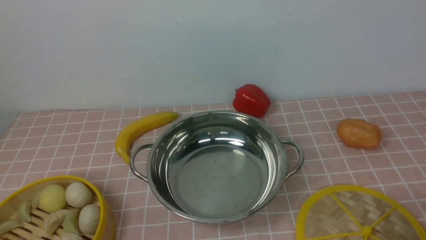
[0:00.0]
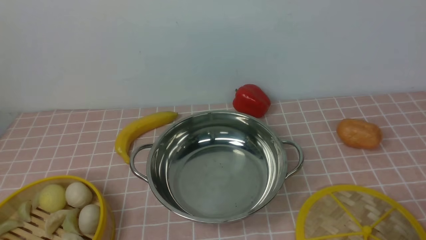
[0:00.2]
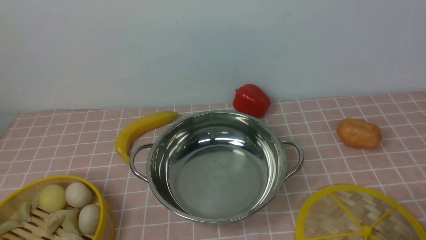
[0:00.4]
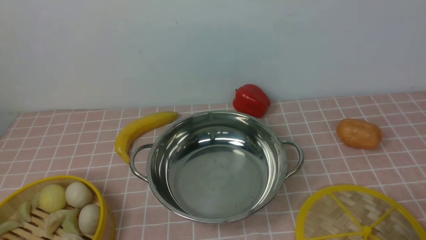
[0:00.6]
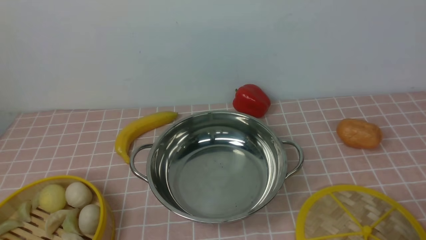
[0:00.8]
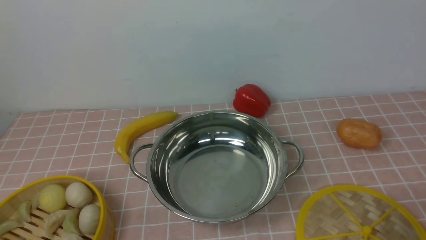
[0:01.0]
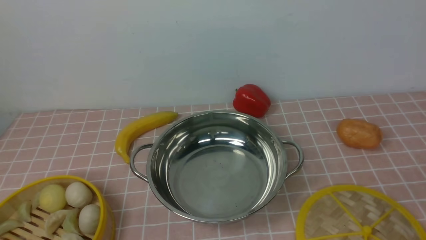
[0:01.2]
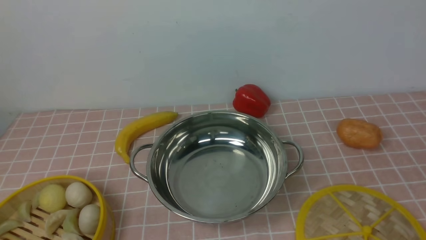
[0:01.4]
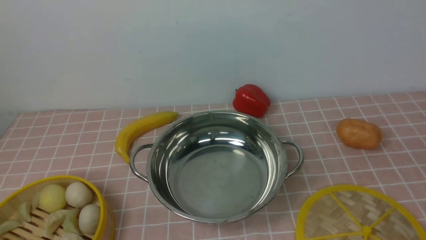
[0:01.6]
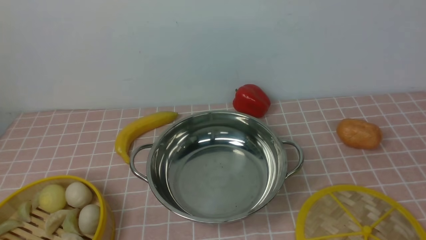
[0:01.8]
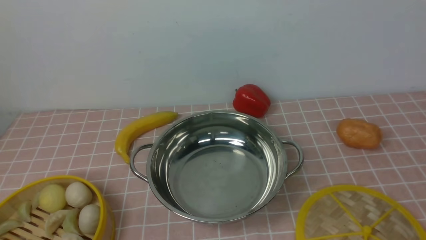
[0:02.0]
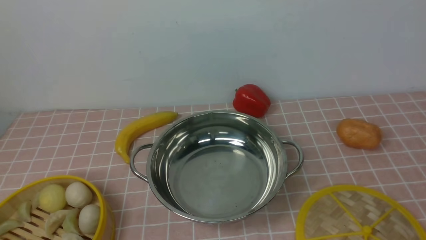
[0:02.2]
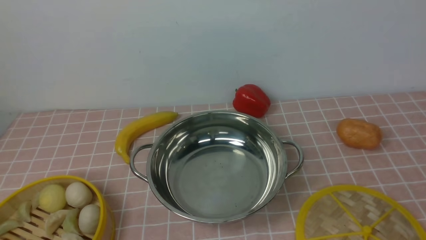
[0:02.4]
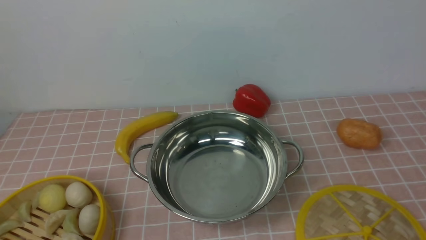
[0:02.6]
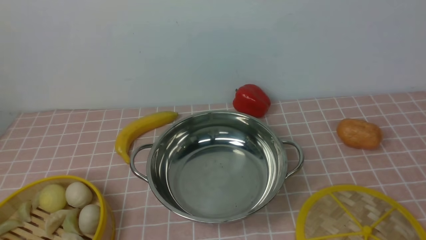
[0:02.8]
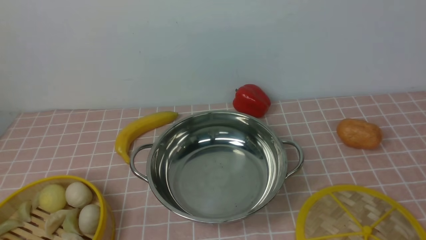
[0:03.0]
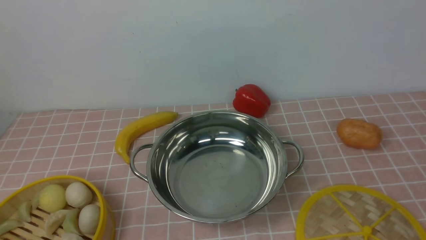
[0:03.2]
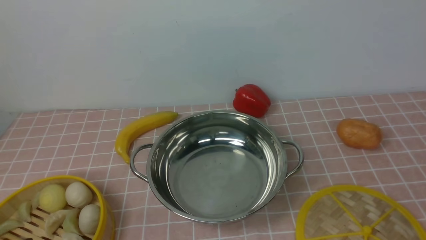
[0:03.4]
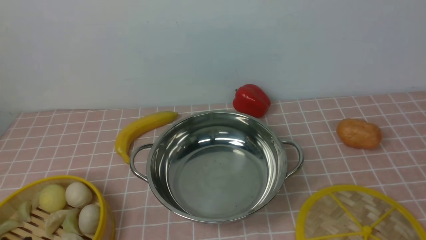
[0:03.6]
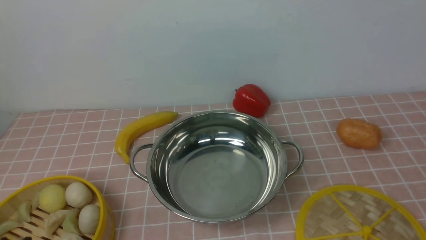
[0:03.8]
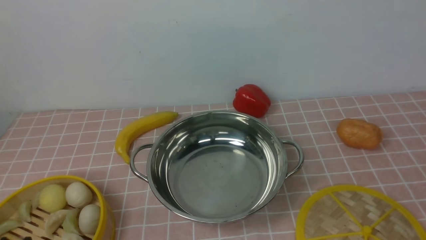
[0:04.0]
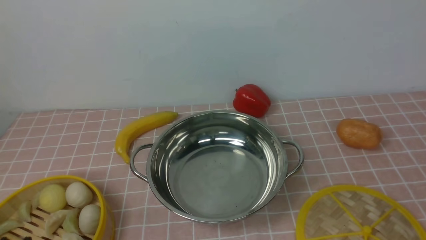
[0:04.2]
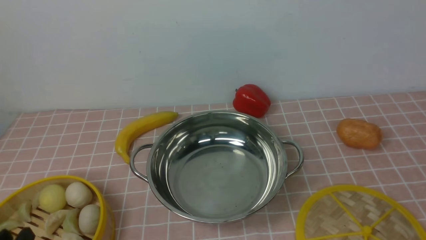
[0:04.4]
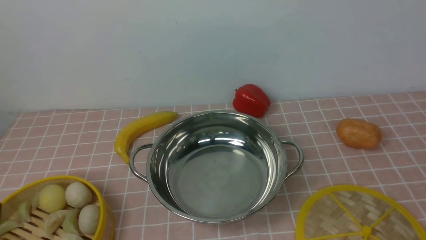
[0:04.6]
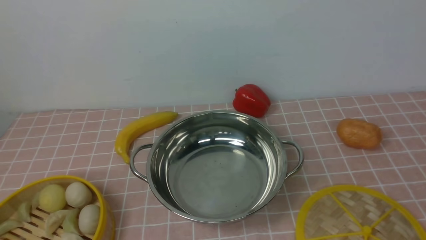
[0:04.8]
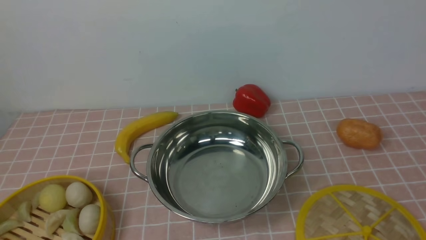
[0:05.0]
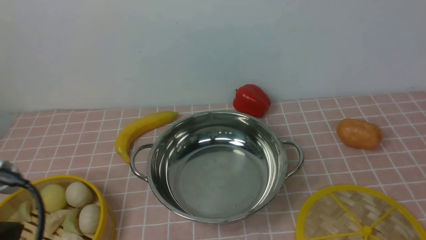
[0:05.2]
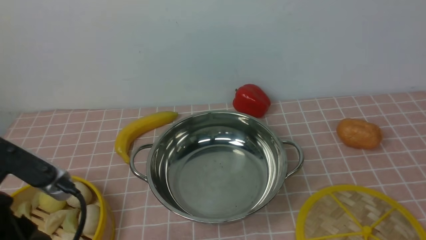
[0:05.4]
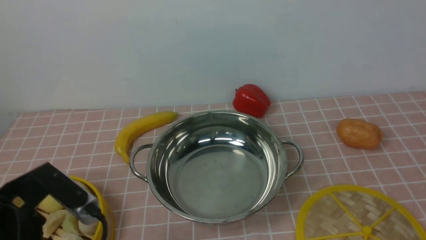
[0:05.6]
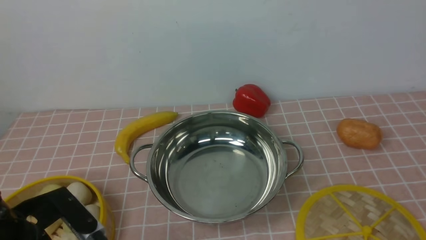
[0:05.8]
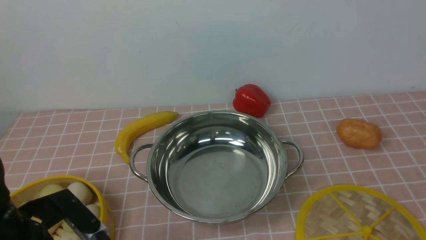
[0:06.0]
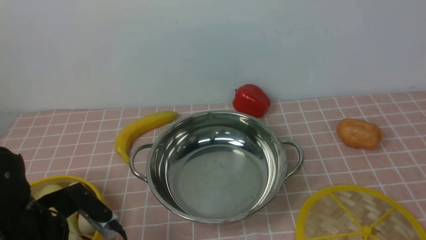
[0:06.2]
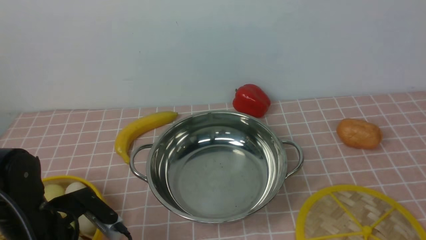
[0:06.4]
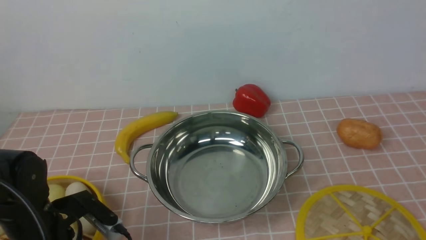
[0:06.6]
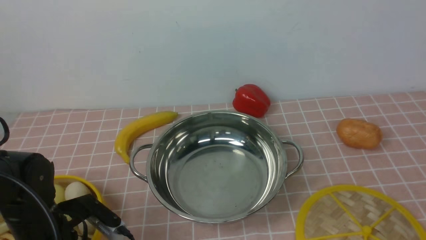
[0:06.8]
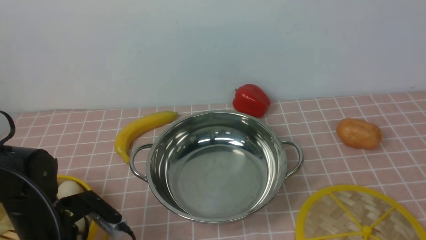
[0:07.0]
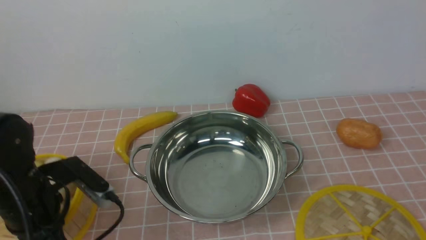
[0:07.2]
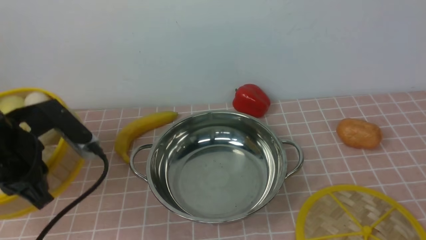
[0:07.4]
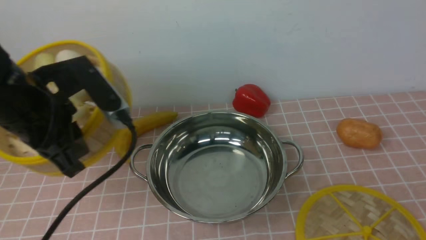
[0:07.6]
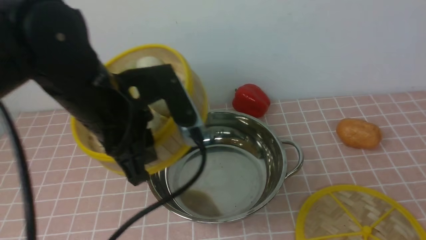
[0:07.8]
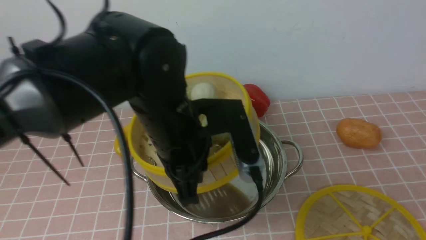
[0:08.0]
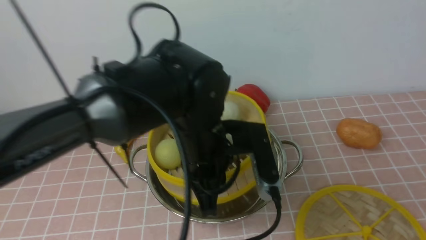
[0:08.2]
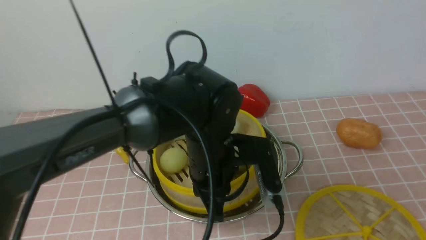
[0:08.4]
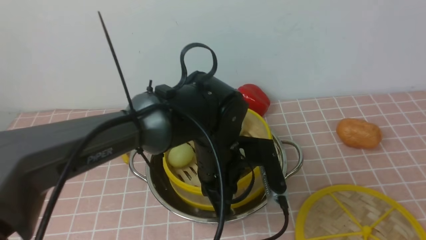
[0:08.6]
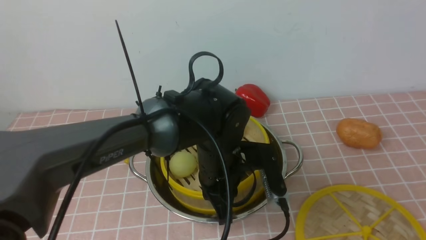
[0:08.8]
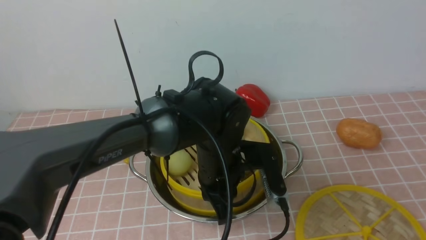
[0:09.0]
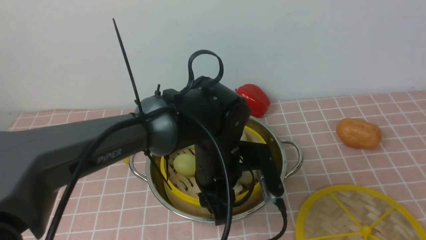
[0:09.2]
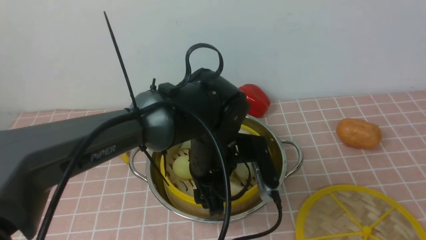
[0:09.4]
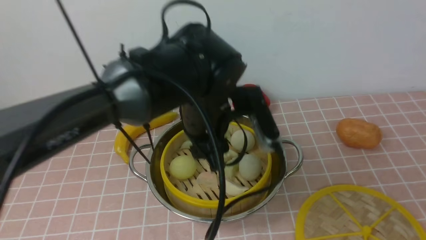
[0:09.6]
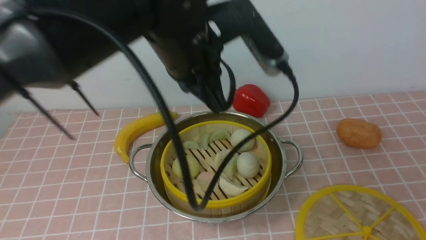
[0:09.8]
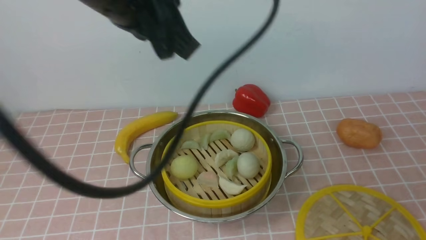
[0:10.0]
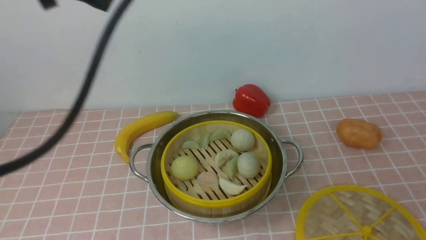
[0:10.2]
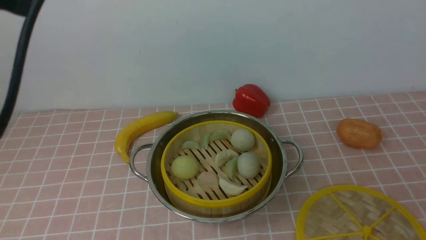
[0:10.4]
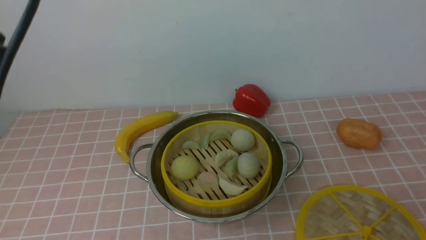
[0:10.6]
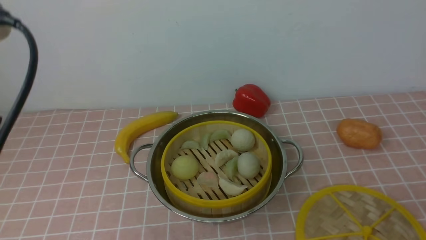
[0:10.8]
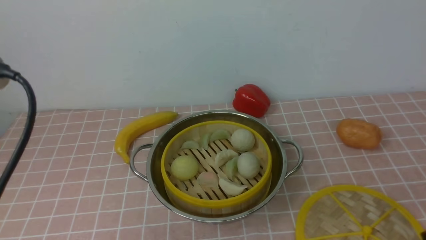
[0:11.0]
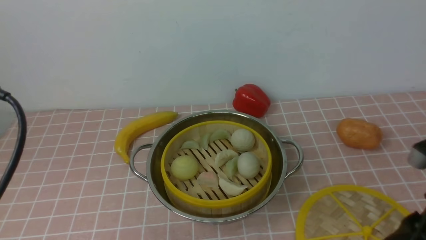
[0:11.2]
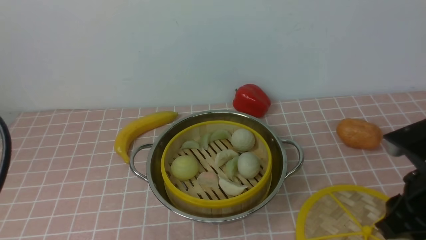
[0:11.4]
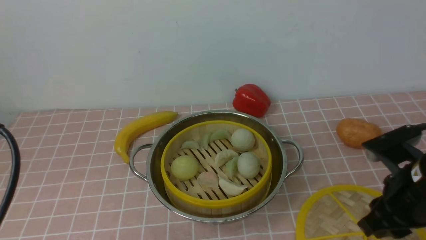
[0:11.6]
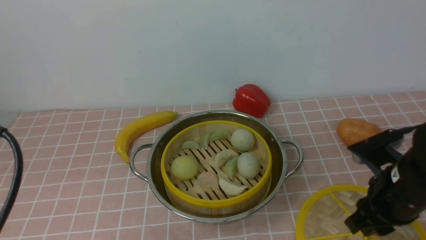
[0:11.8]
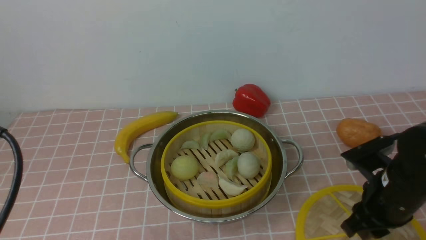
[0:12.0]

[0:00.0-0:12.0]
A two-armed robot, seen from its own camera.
Task of the whole recording: place the steamer in the pot on the pink tablecloth, and put the lid on the steamer.
Step, 0:00.0 to 0:07.0: use the left arm to lift the steamer closest to it.
Step, 0:07.4 to 0:09.4: use the left arm to put the steamer into the iron steamer pot in the middle.
0:04.4 to 0:06.0: The left gripper goes some 10 cm forward, and reaches about 15 cm upward, then returns.
0:06.0 to 0:07.6: The left gripper travels upward and forward by roughly 15 cm, and closes up.
0:07.6 to 0:09.0: The left gripper goes some 25 cm to the right and downward.
0:09.0 to 0:10.4: The left gripper travels upward and to the left by about 35 cm, and opens, then closes again.
0:10.4 to 0:12.0: The right gripper moves forward and downward, some 25 cm, while the left gripper travels downward, backward and to the left by about 15 cm.

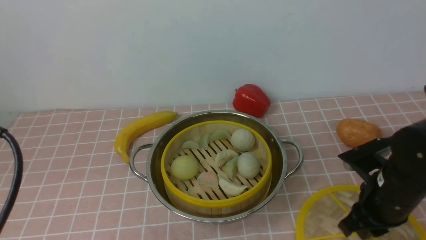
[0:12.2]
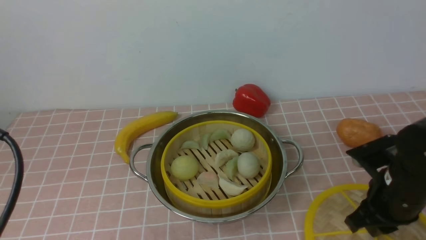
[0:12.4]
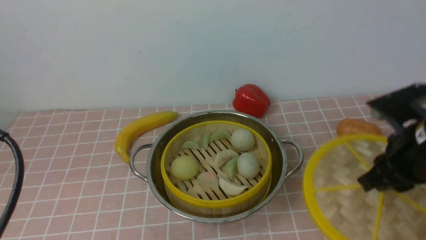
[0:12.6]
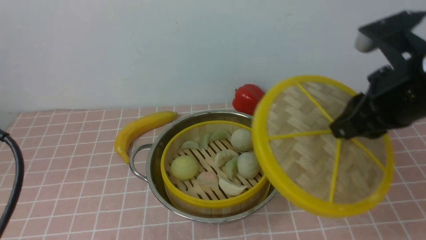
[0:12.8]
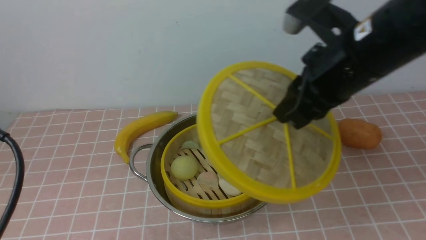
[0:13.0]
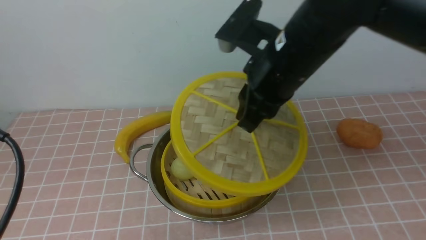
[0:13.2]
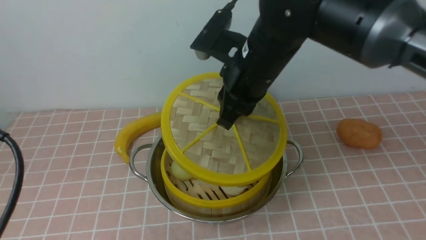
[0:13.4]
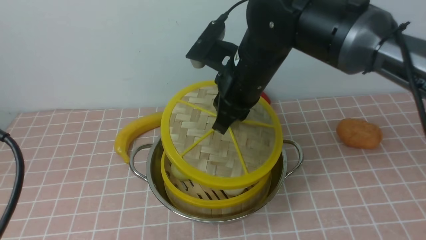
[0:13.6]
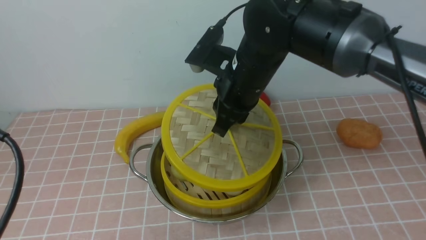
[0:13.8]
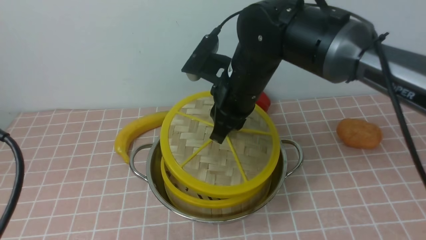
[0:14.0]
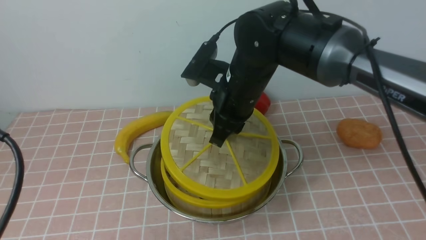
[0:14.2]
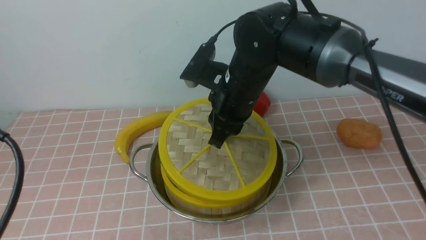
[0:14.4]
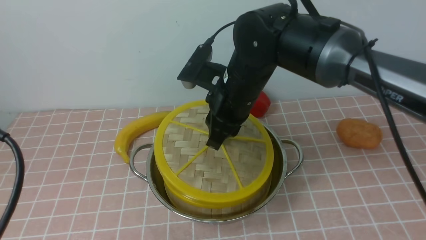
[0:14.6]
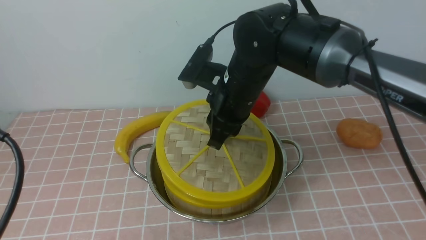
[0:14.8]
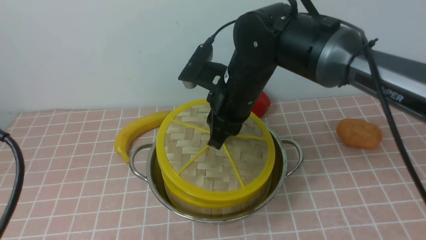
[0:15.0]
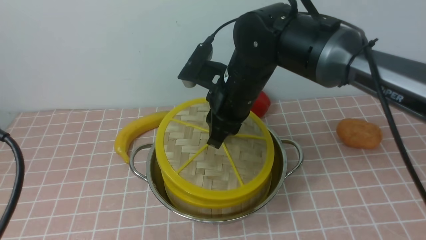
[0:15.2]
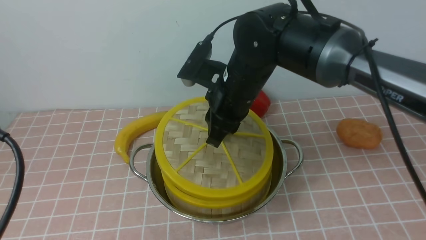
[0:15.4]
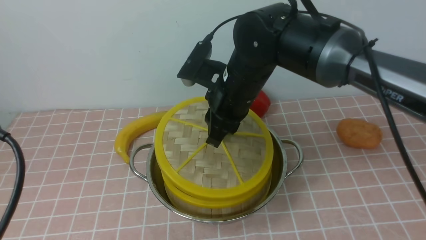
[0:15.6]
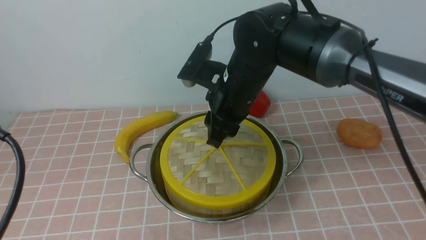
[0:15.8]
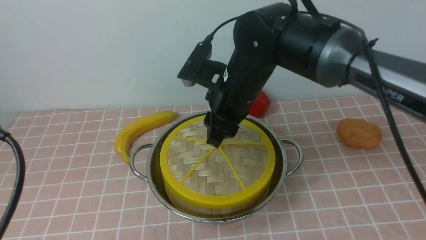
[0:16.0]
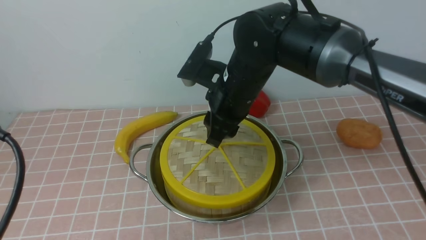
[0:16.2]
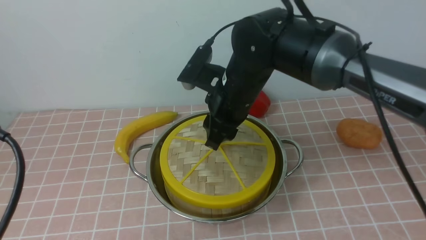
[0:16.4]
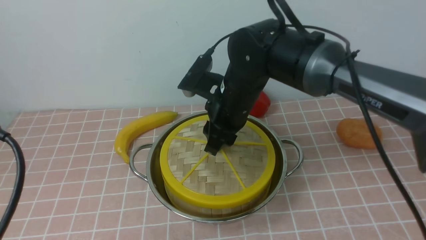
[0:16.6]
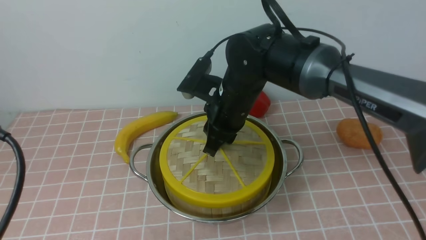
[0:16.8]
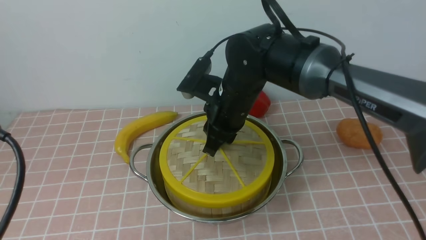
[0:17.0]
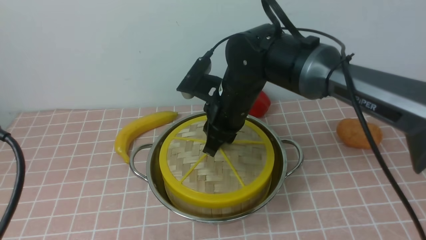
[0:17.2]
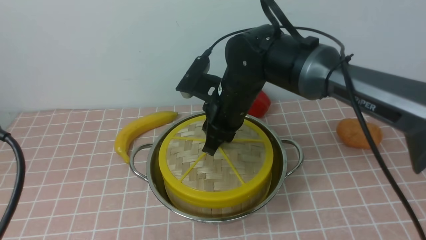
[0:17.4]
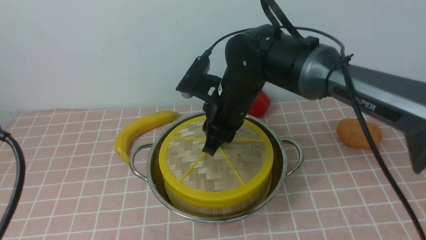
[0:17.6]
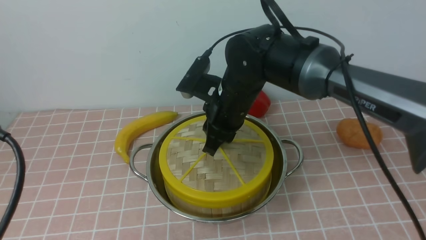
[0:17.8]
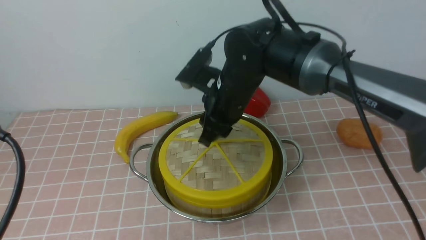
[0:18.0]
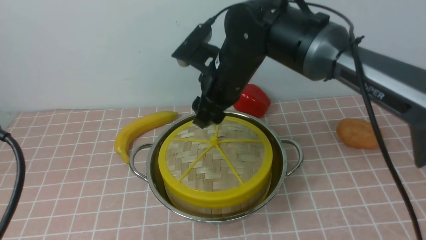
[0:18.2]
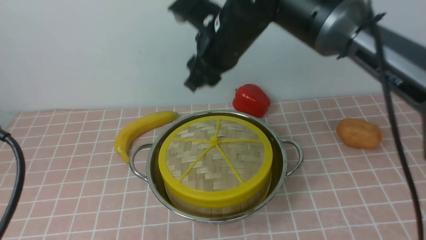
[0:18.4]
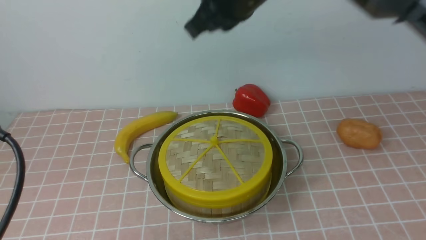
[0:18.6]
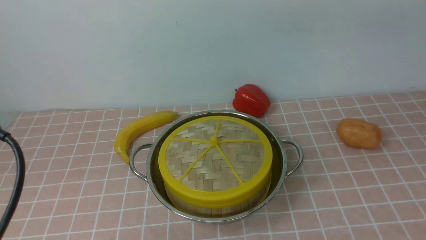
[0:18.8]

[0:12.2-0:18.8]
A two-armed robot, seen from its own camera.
Task of the whole recording: place the steamer in the pot on the pink tablecloth, and put the lid on the steamer.
Step, 0:12.6 to 0:18.2: use the right arm to place the steamer lid on the steamer.
0:12.2 to 0:13.8: The right gripper is displaced to the left, upward and forward by roughly 25 cm.
0:13.8 to 0:15.4: The grippers move only a little.
0:15.4 to 0:17.2: The right gripper opens, then closes again.
0:17.2 to 0:18.8: The right gripper is displaced upward by roughly 20 cm, and closes.
